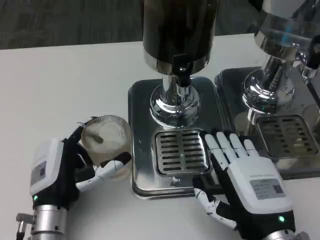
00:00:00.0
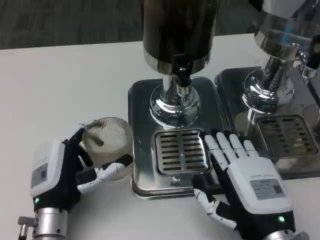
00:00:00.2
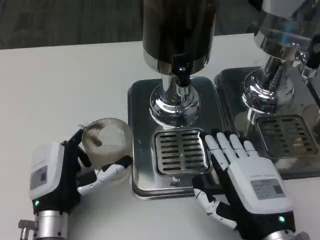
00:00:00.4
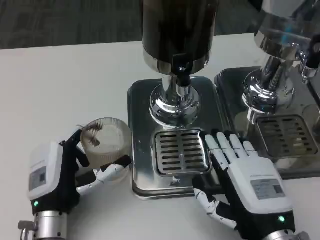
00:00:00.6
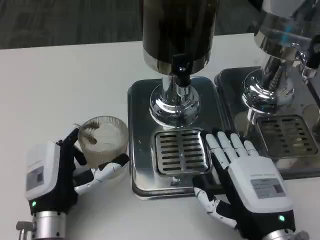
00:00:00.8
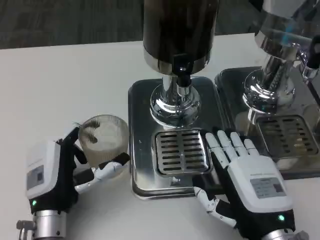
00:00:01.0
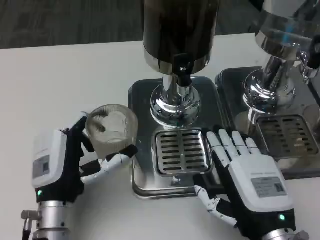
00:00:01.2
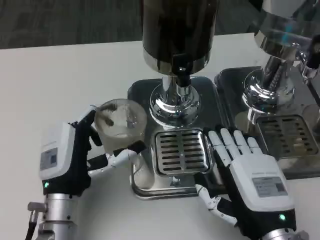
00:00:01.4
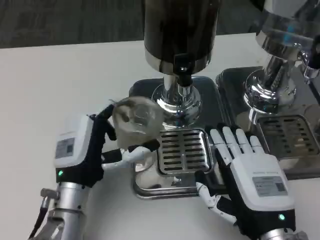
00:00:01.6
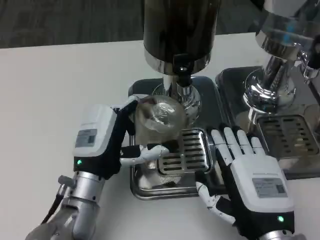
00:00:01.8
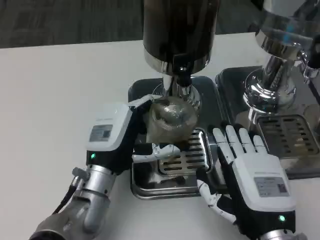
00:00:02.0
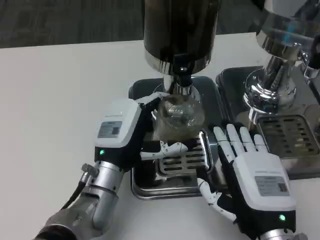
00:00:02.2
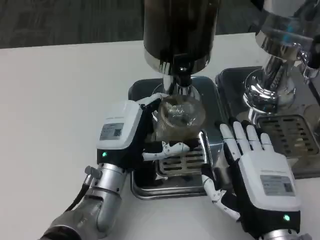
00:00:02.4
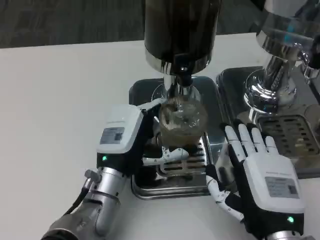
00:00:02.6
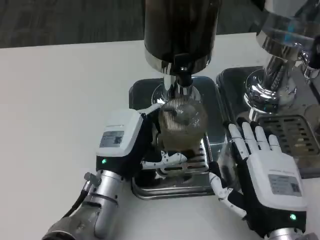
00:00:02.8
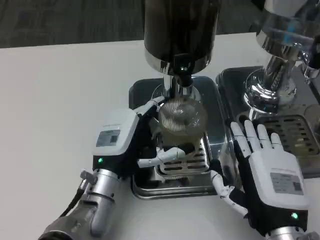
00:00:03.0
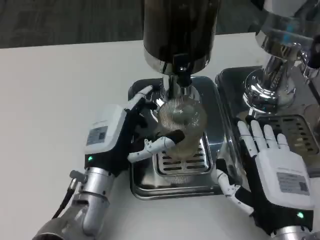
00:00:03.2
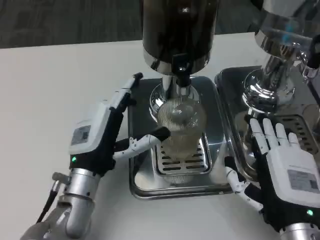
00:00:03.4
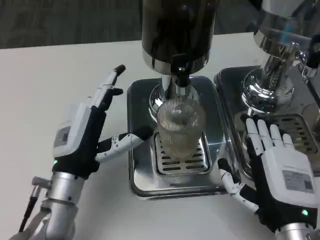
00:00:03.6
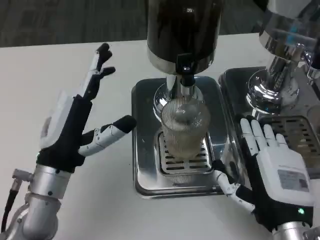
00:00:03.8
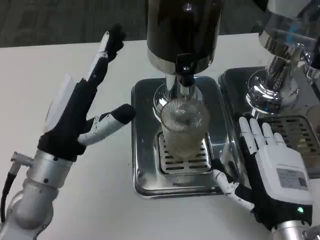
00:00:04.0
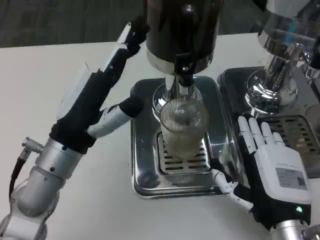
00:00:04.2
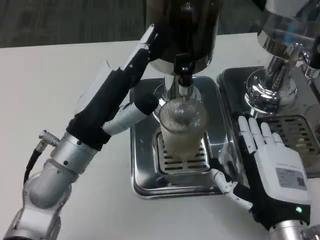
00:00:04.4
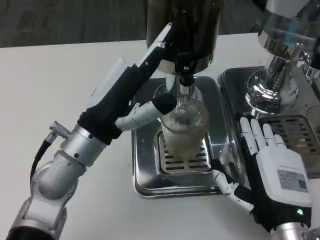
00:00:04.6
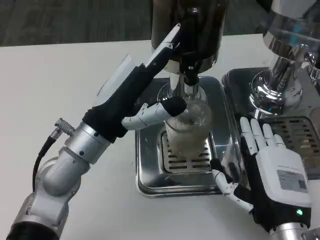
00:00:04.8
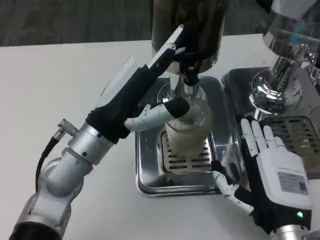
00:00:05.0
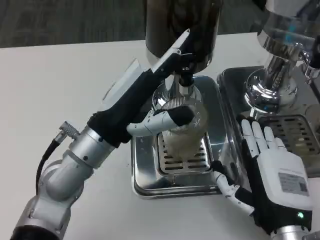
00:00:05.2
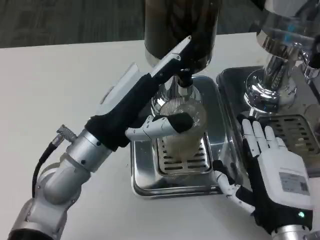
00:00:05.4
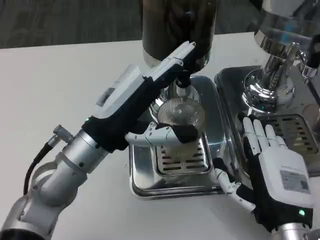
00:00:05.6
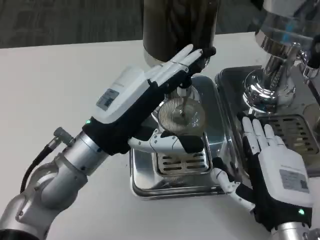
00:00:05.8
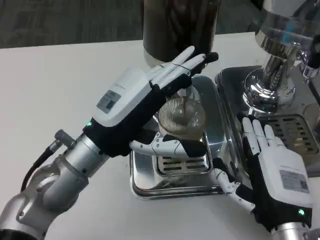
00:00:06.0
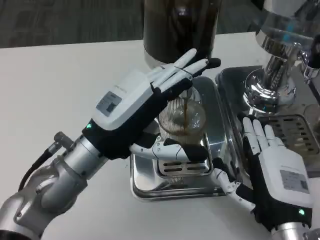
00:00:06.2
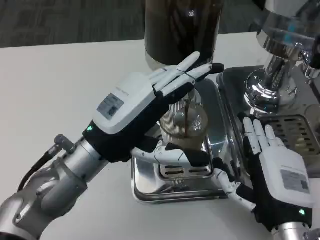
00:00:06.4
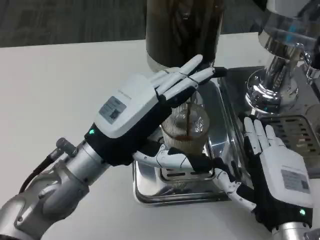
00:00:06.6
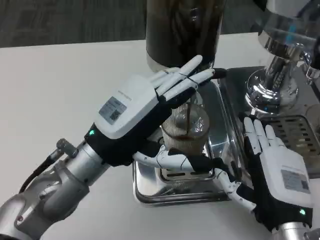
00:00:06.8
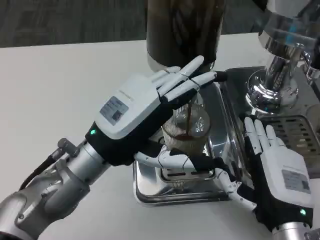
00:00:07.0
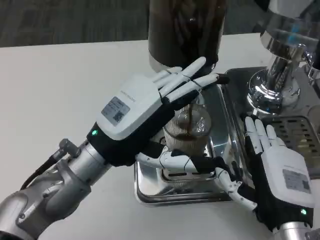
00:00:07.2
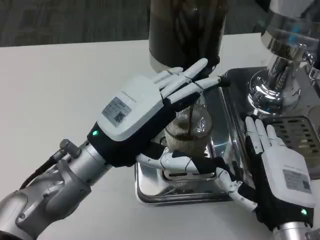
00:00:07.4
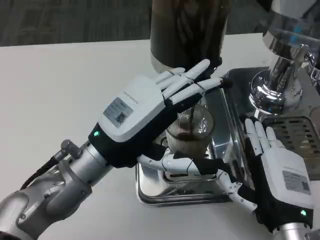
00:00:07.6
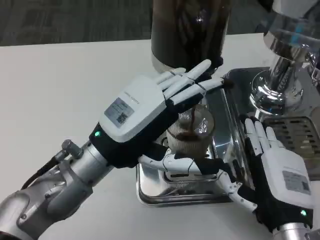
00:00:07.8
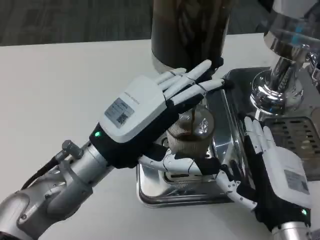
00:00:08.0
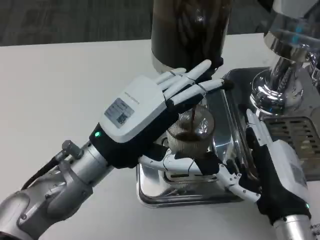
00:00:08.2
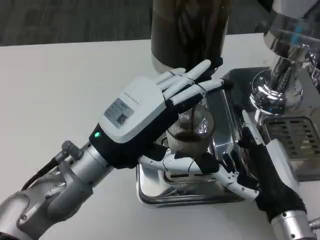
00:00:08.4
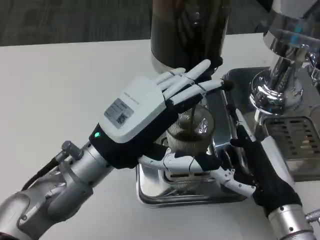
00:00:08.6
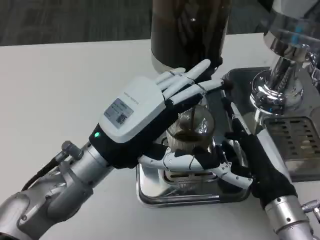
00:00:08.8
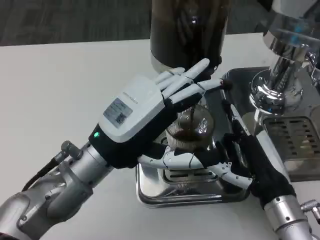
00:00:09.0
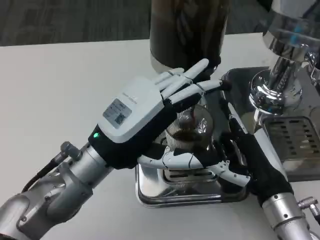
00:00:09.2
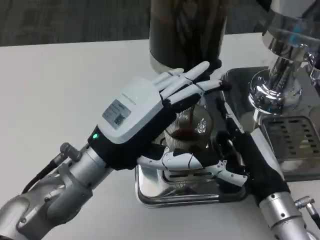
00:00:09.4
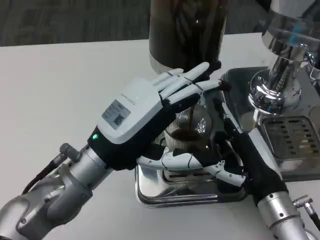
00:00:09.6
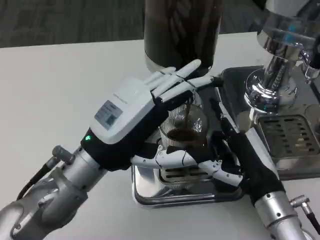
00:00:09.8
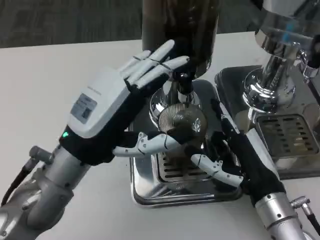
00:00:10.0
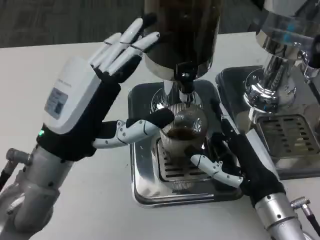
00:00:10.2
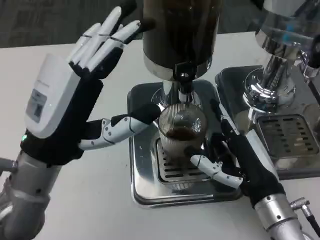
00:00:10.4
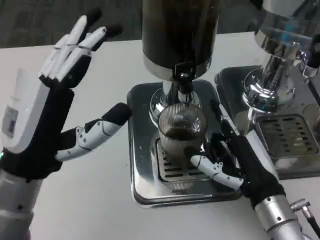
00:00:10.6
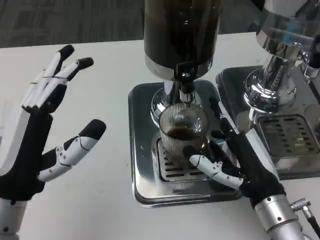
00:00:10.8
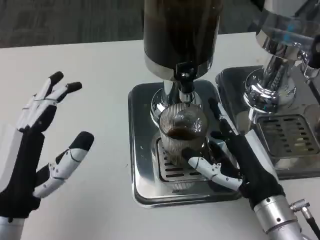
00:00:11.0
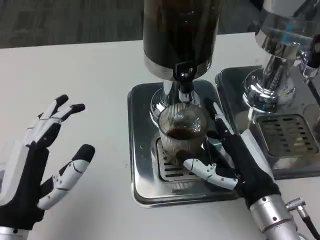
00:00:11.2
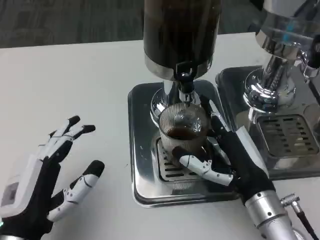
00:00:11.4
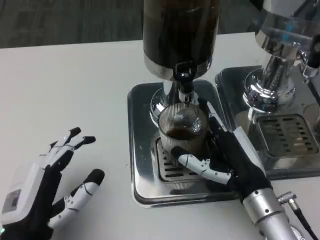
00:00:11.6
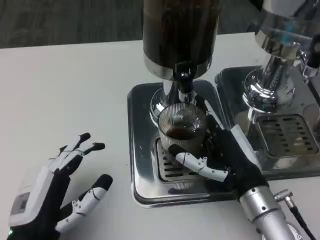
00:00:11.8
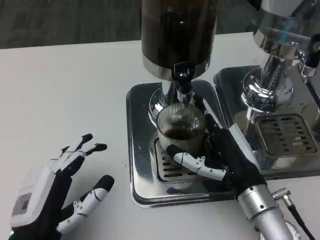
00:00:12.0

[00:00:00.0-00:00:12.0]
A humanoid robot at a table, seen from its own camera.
Task of the whole recording: Grasp the cup under the faucet to collect the drink, then remove the cup.
00:00:03.0 to 00:00:04.4: The left hand goes about 10 cm upward.
00:00:09.0 to 00:00:10.4: The left hand moves some 5 cm.
00:00:10.4 to 00:00:12.0: The left hand travels downward and backward by some 15 cm.

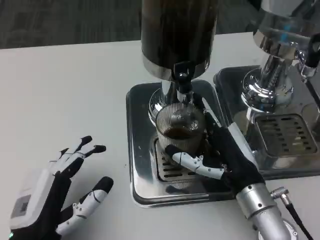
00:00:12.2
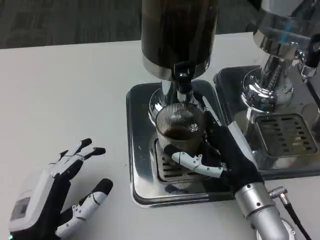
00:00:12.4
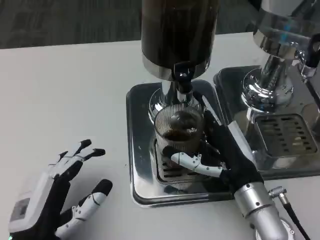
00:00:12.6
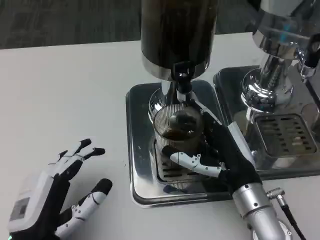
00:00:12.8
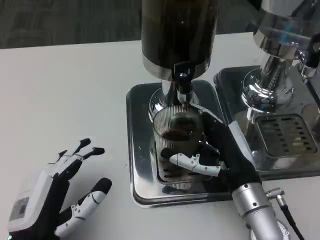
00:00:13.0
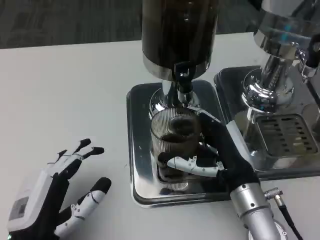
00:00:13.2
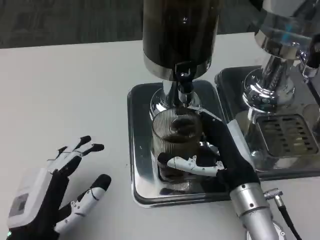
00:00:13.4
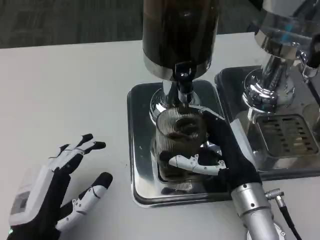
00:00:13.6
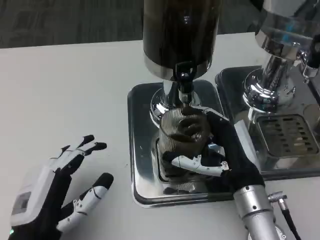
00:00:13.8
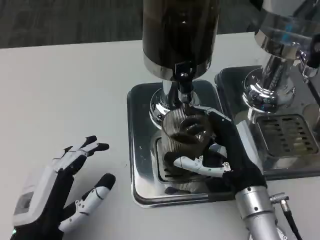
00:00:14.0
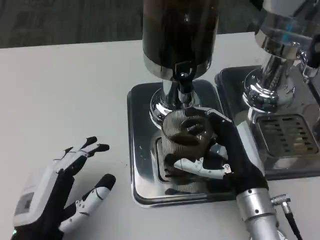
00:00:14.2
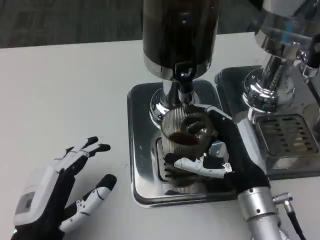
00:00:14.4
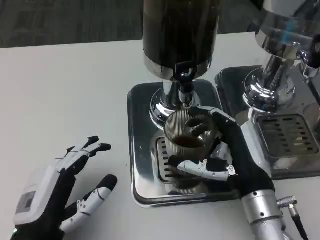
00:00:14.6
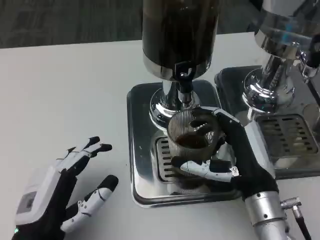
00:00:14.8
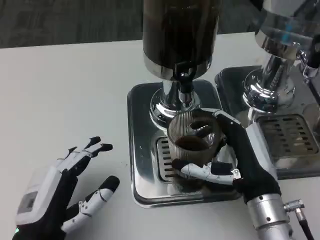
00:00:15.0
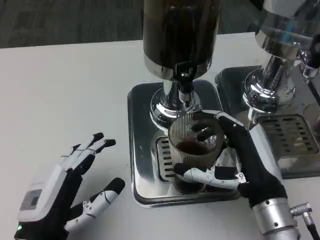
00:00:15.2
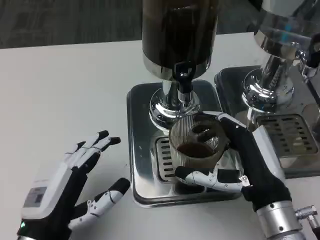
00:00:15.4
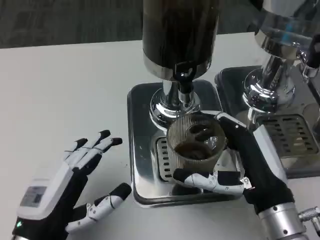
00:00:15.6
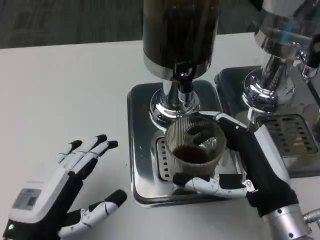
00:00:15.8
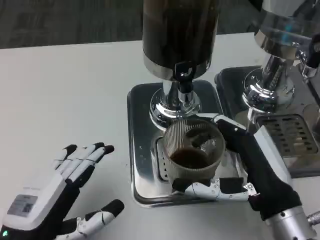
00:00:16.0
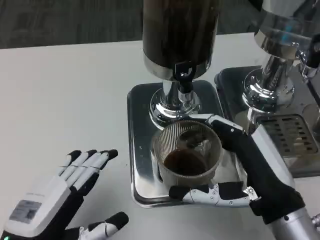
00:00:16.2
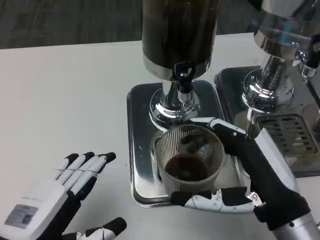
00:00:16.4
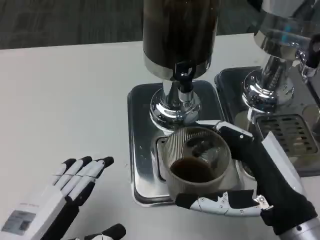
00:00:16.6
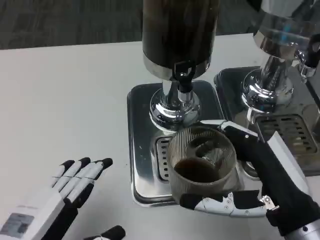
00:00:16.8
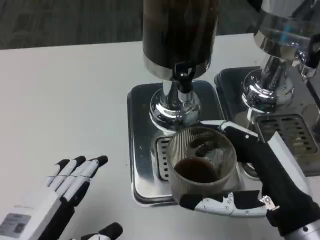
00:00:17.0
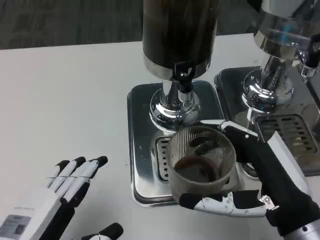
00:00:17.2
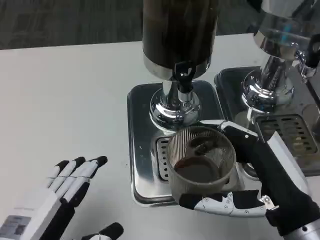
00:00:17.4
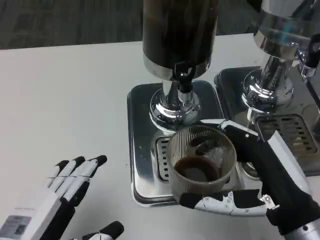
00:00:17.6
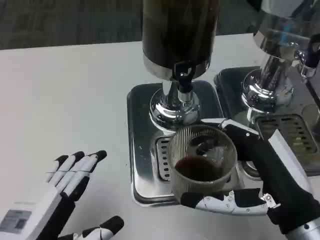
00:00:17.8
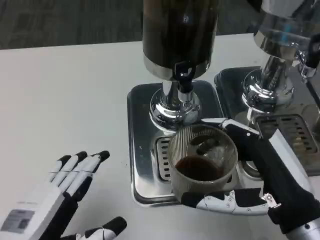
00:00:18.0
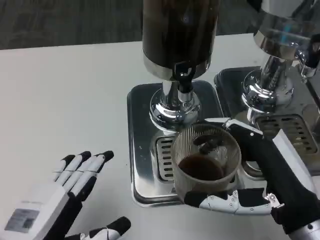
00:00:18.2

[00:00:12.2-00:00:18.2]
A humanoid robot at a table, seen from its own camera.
Task of the whole recording: Grasp the cup under the faucet to collect the drink, then remove the cup.
00:00:12.2 to 00:00:15.2: The hands move only a little.
00:00:15.2 to 00:00:16.6: The left hand shifts by some 5 cm. Meanwhile the right hand moves backward, approximately 5 cm.
00:00:16.6 to 00:00:18.2: Both hands stay about where they are.

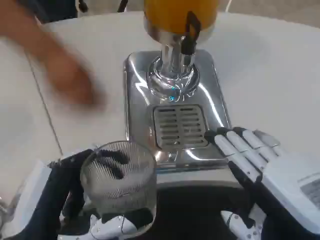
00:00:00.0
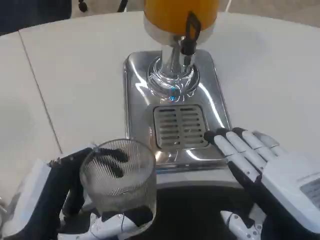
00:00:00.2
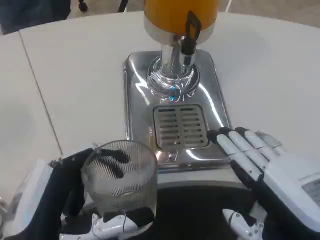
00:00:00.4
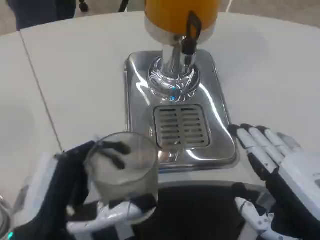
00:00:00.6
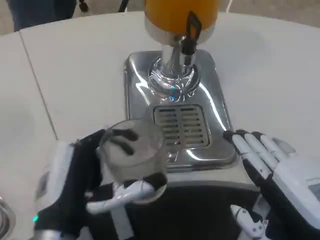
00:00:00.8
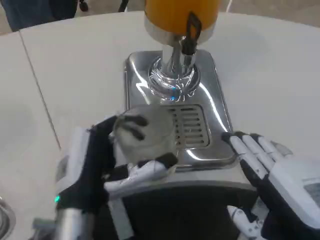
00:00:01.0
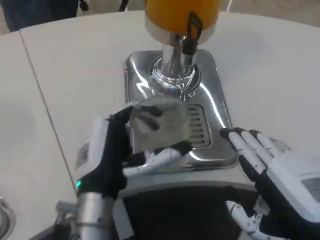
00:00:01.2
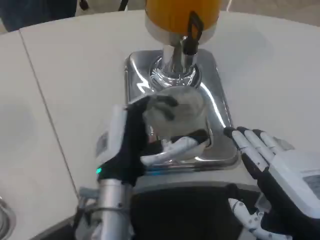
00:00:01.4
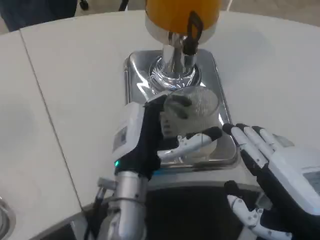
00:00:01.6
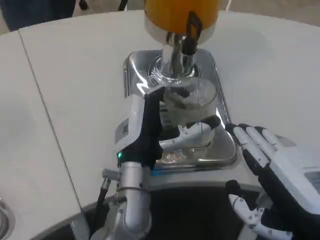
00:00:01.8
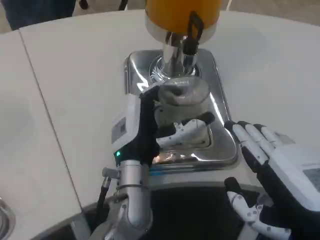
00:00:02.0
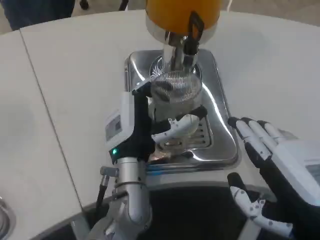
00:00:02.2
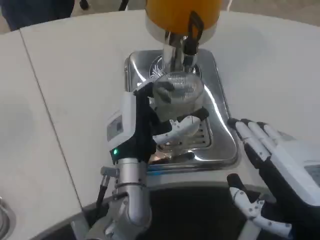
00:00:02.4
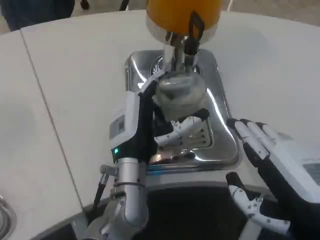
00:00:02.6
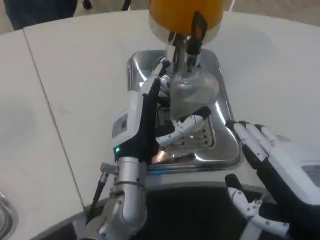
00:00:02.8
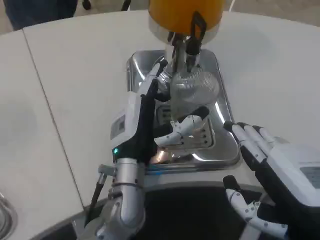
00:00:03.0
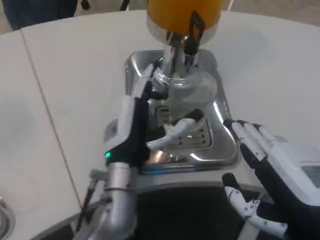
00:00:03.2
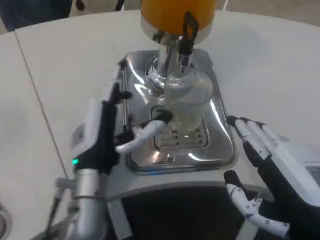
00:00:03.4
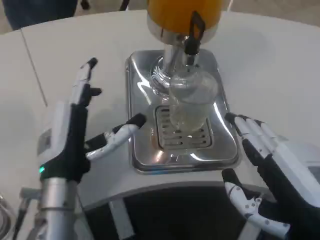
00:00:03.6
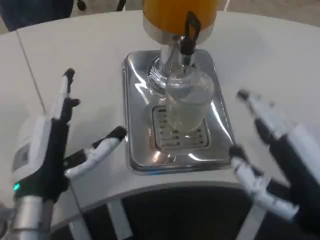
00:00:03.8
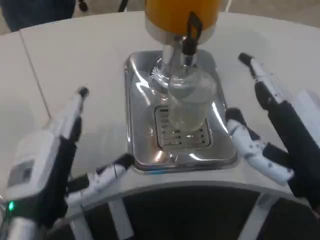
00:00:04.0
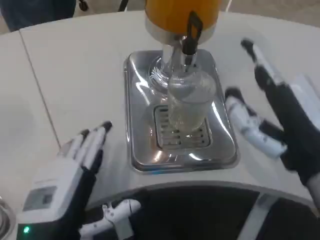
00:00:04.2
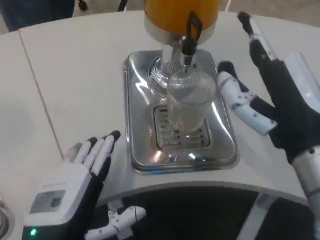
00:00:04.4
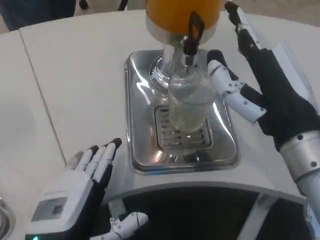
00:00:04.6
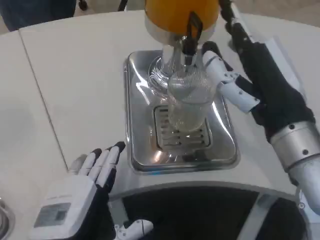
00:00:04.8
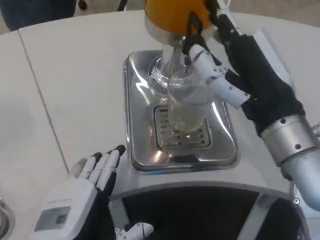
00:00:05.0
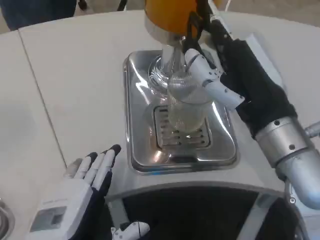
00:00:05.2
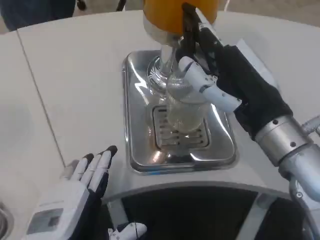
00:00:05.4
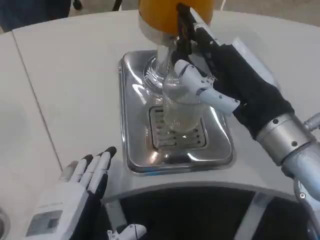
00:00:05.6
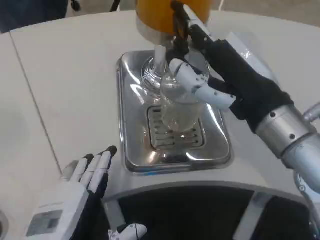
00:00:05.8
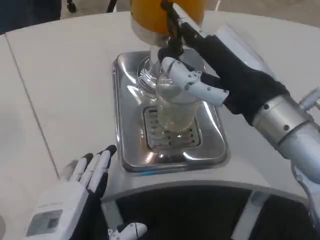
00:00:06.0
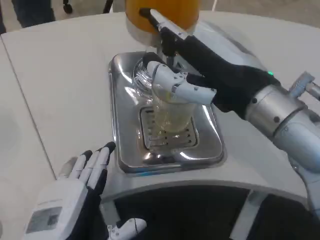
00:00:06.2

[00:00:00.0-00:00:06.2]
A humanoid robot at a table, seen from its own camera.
Task of the whole recording: Grasp the cup under the faucet to collect the drink, then remove the cup.
00:00:00.0 to 00:00:01.6: The left hand goes about 20 cm forward and to the right.
00:00:01.6 to 00:00:03.2: The hands move only a little.
00:00:03.2 to 00:00:04.6: The left hand shifts about 15 cm backward and to the left; the right hand moves forward, some 10 cm.
00:00:04.6 to 00:00:06.2: The right hand ends up roughly 5 cm from where it was.
